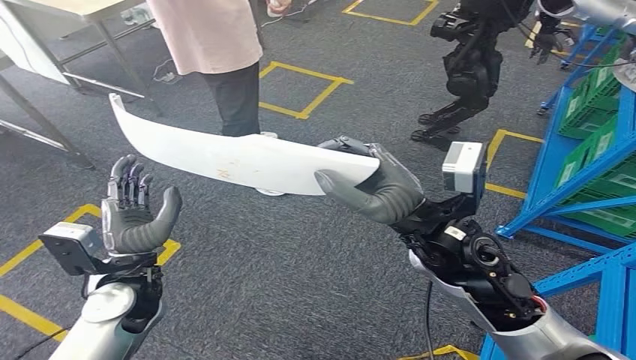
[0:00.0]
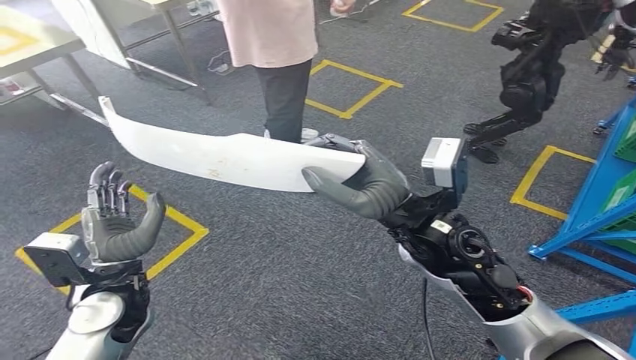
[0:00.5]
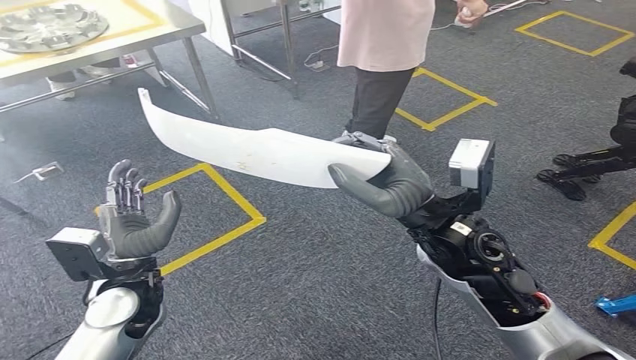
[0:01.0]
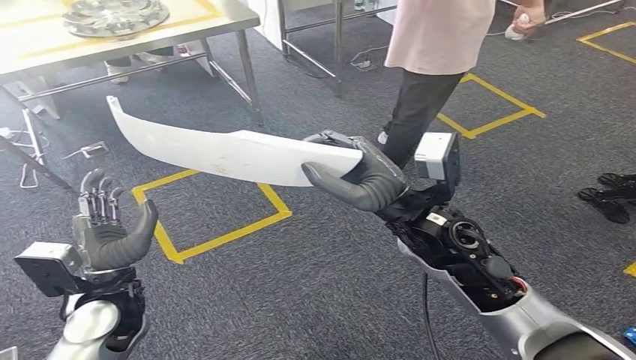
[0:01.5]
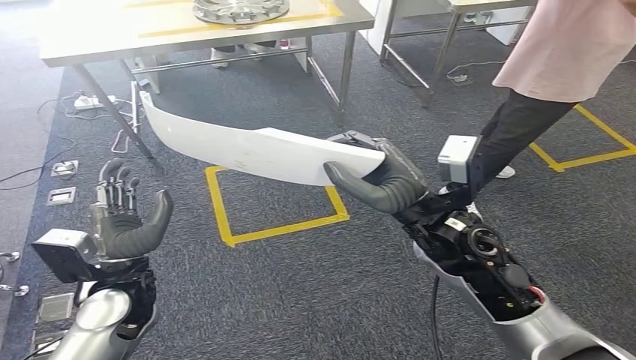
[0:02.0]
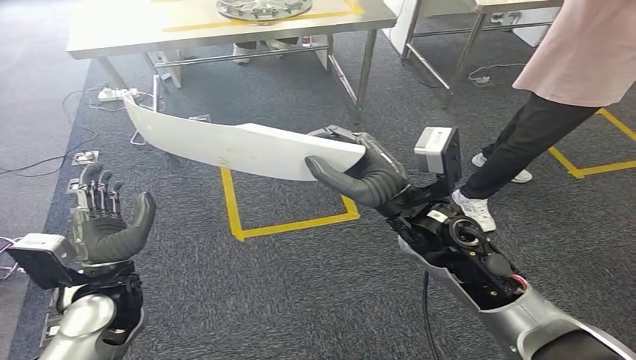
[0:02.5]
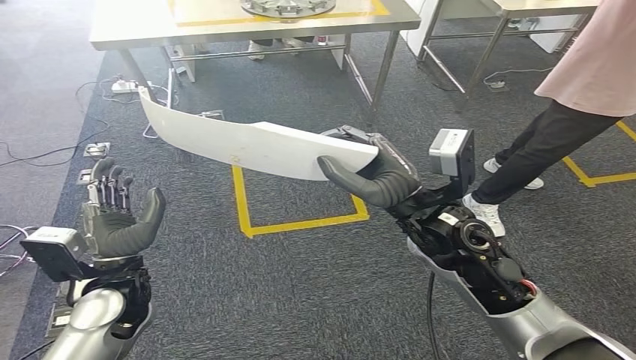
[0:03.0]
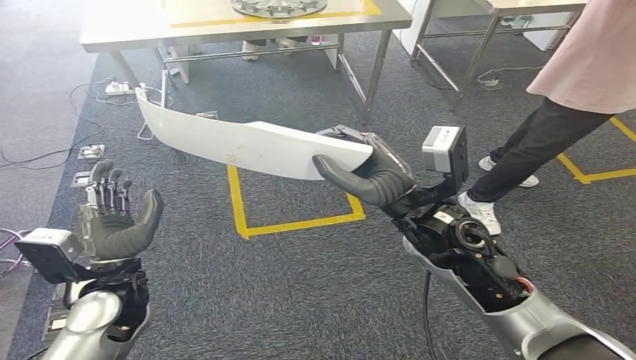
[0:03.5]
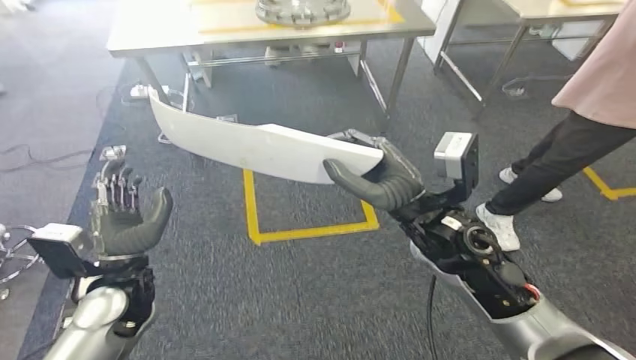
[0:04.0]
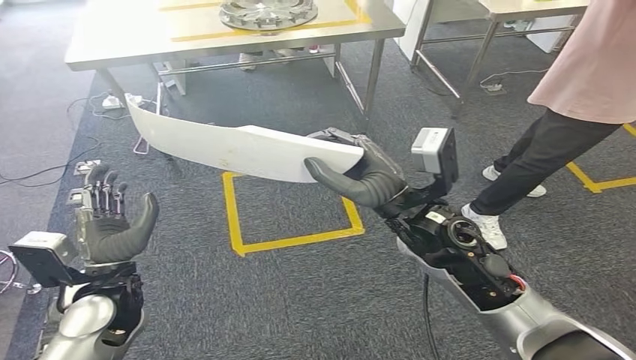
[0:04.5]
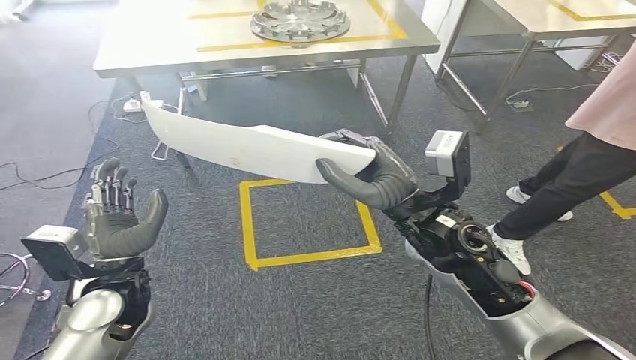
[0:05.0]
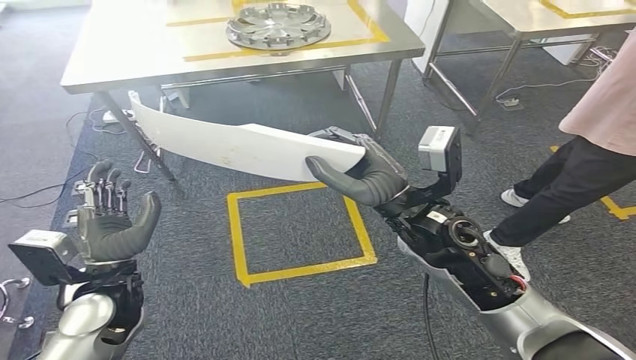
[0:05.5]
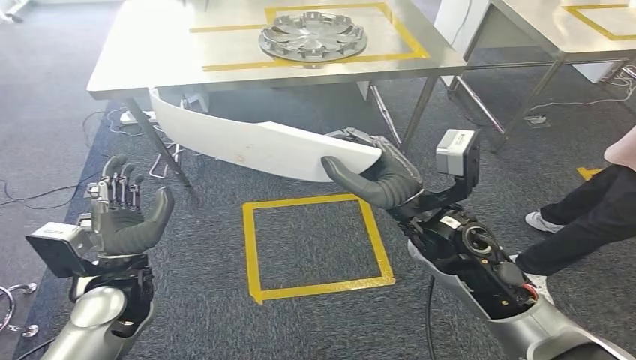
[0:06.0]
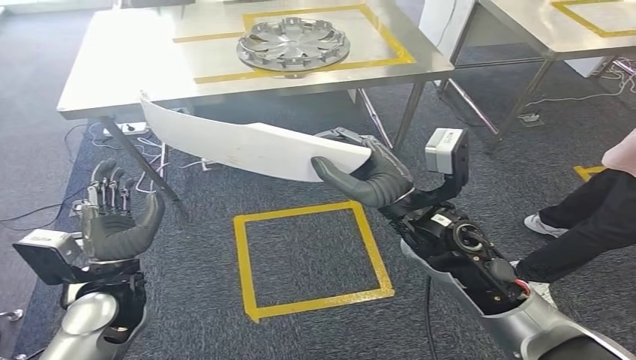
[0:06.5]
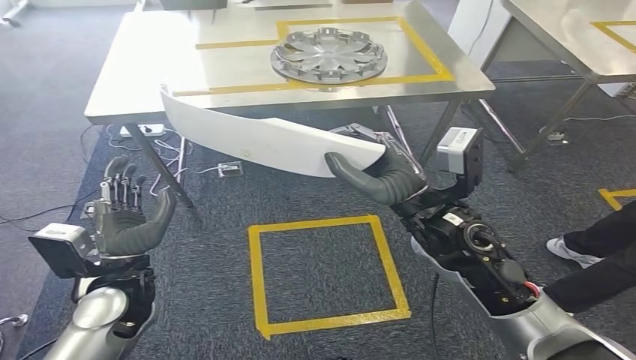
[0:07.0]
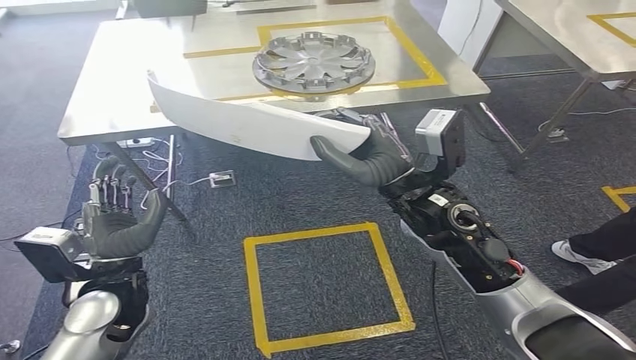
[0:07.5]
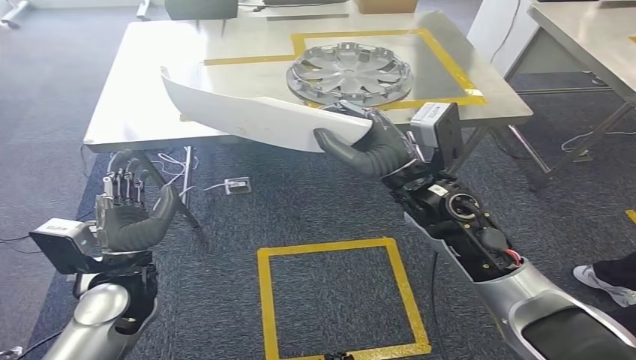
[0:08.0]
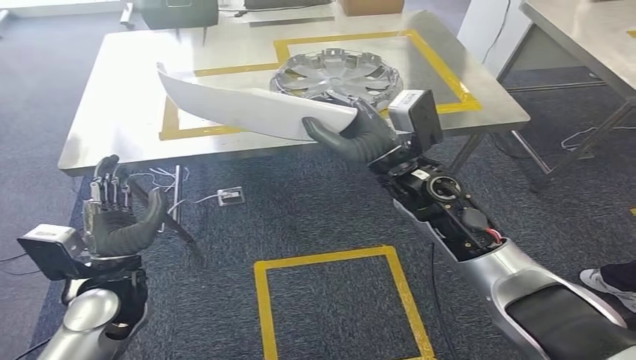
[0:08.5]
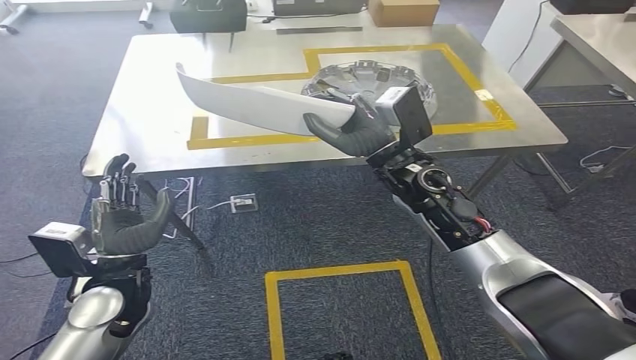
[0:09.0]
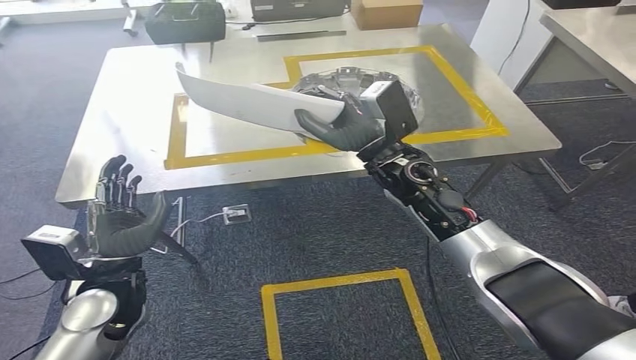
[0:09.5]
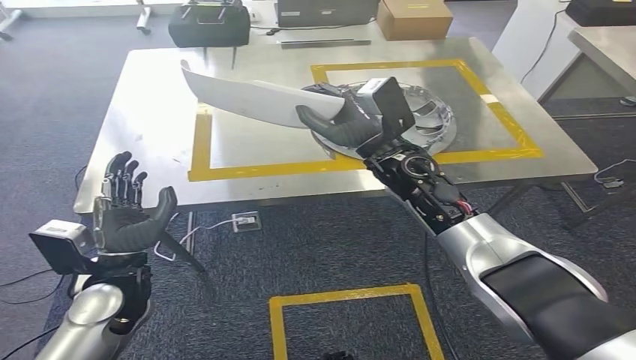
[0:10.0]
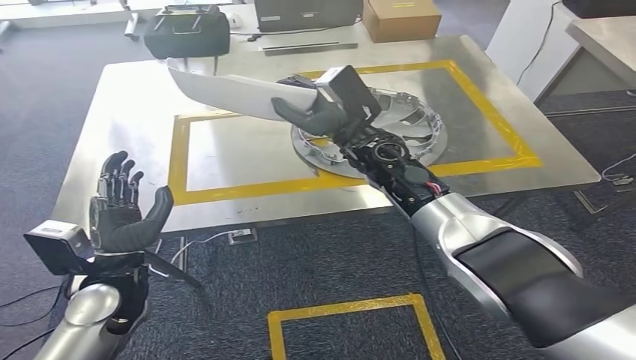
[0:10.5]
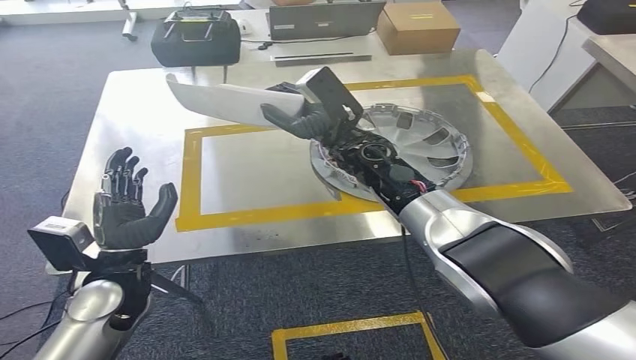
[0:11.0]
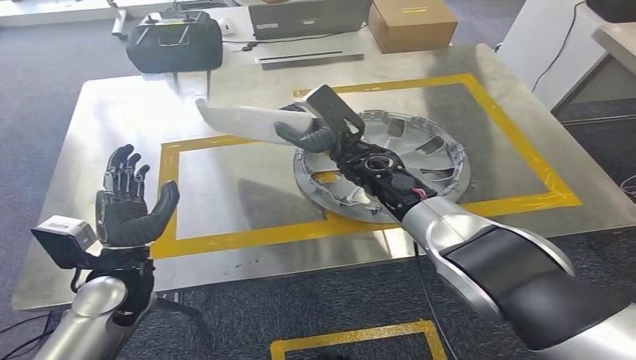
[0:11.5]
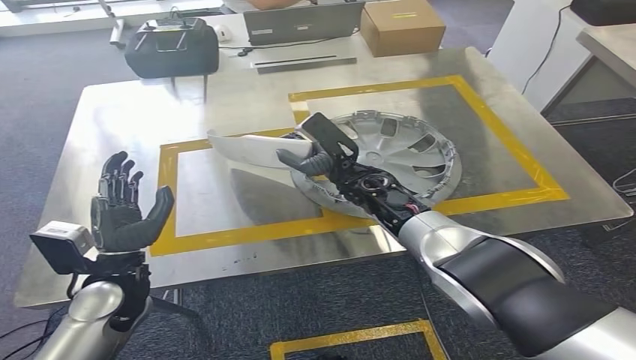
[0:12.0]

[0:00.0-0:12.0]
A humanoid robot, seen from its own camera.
Step, 0:00.0 to 0:11.0: Move the small parts to the workbench.

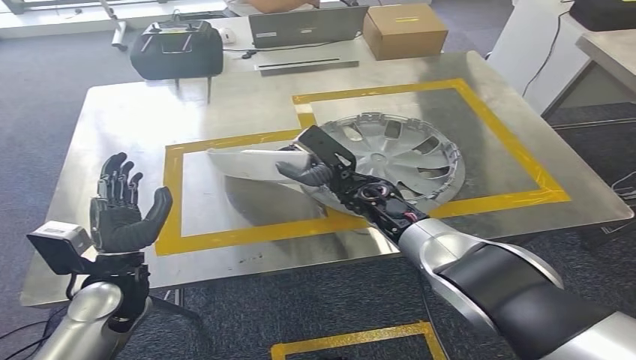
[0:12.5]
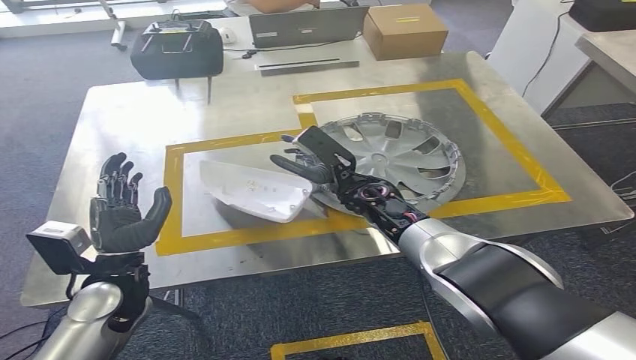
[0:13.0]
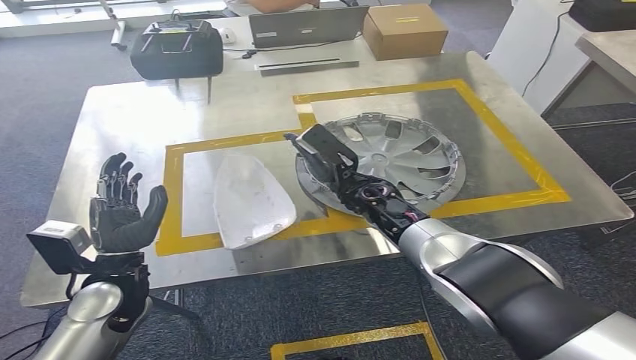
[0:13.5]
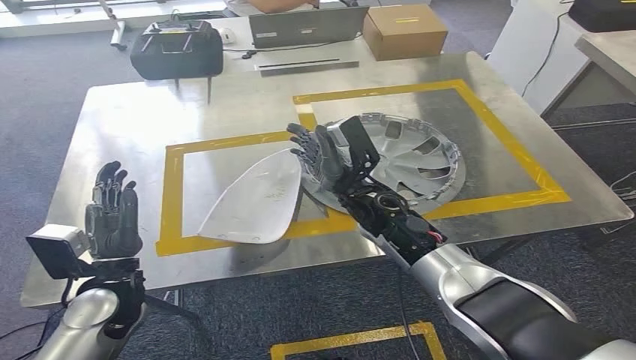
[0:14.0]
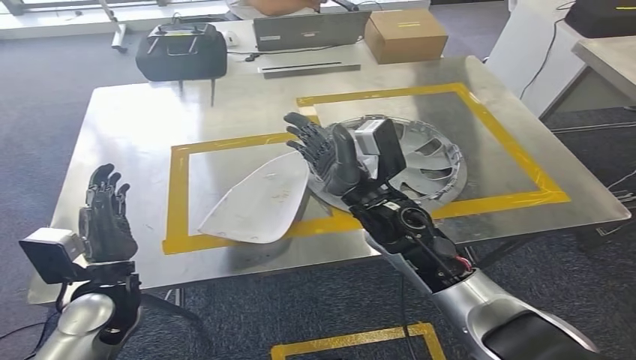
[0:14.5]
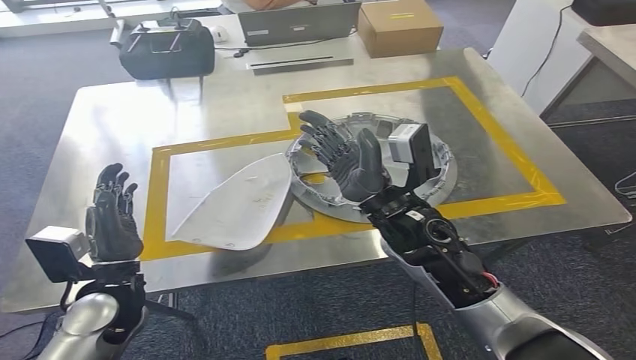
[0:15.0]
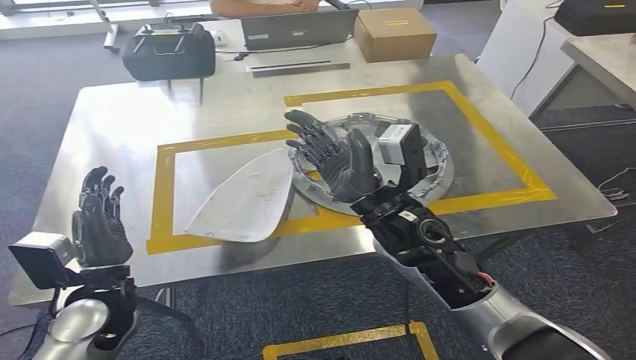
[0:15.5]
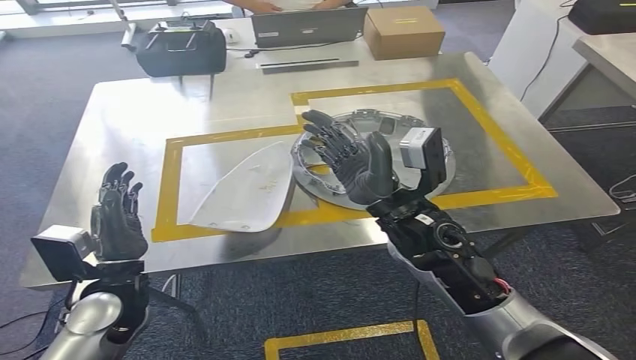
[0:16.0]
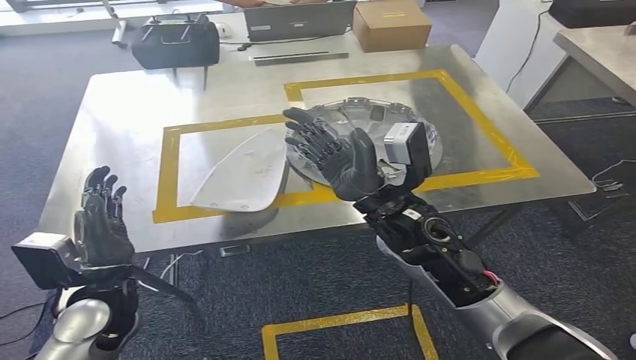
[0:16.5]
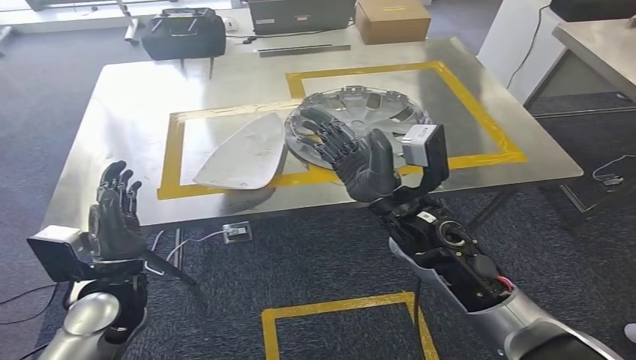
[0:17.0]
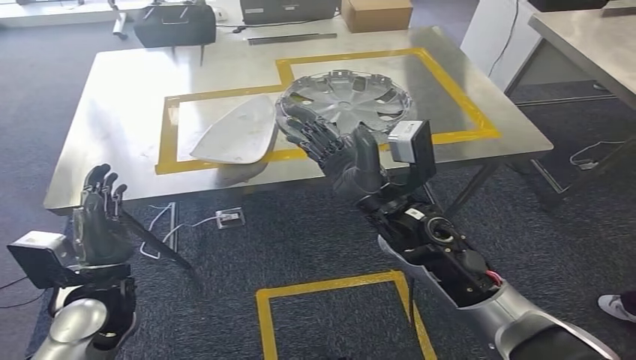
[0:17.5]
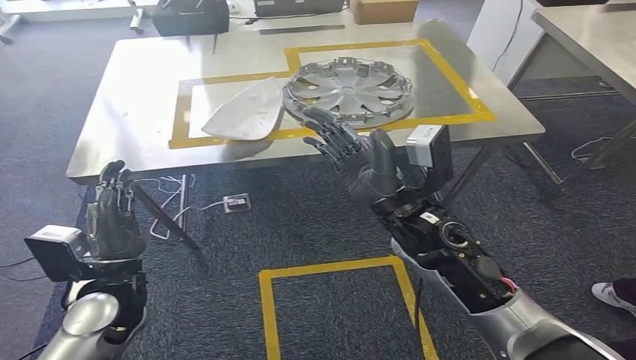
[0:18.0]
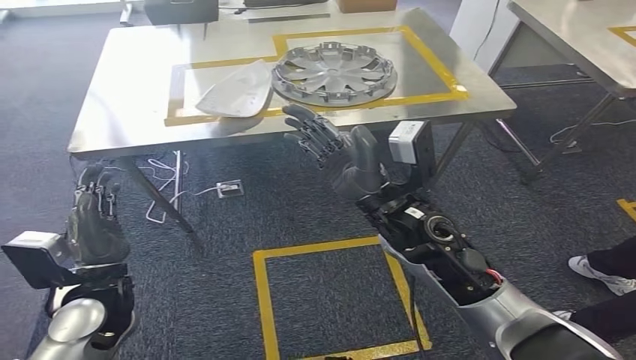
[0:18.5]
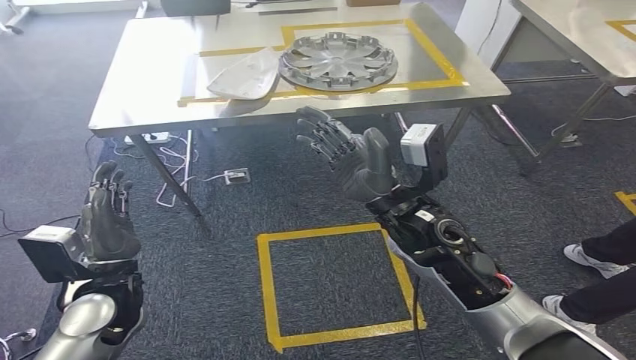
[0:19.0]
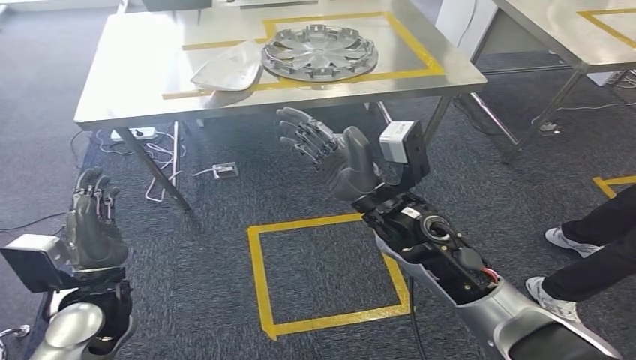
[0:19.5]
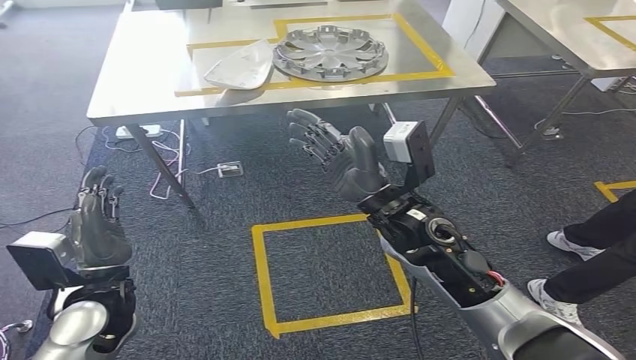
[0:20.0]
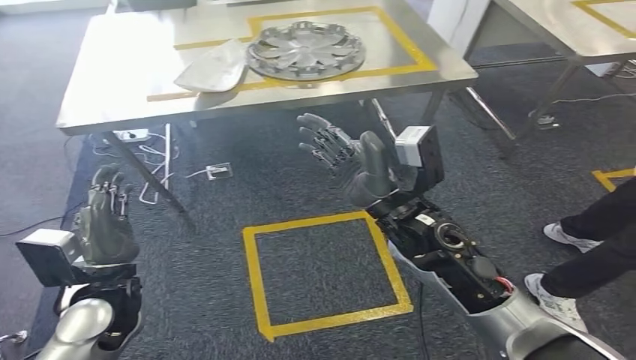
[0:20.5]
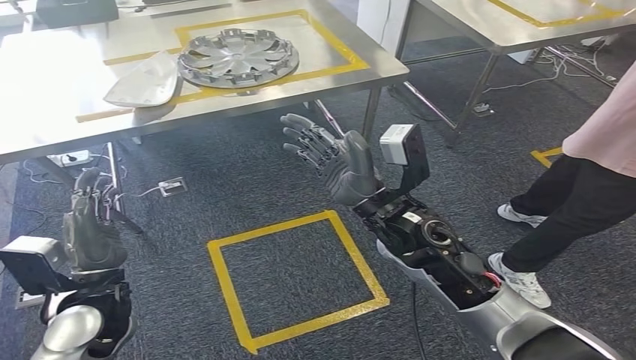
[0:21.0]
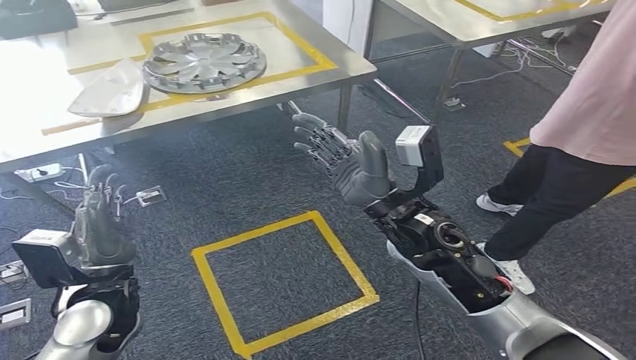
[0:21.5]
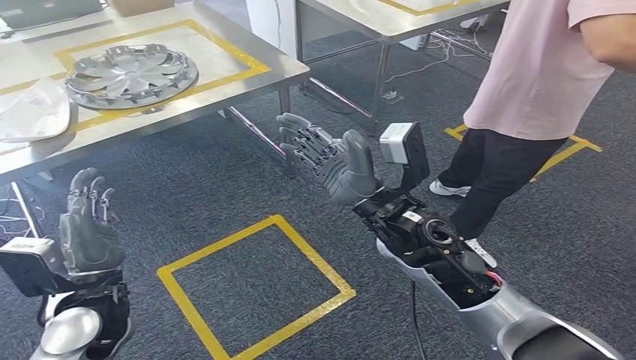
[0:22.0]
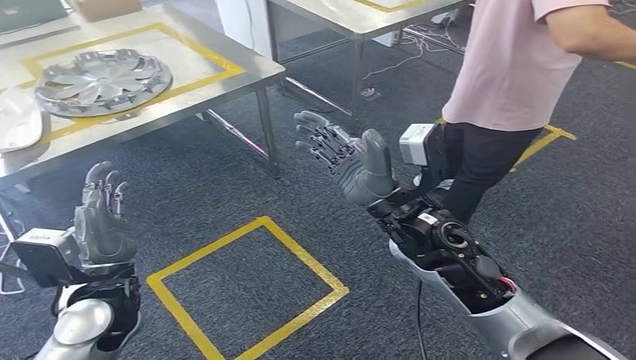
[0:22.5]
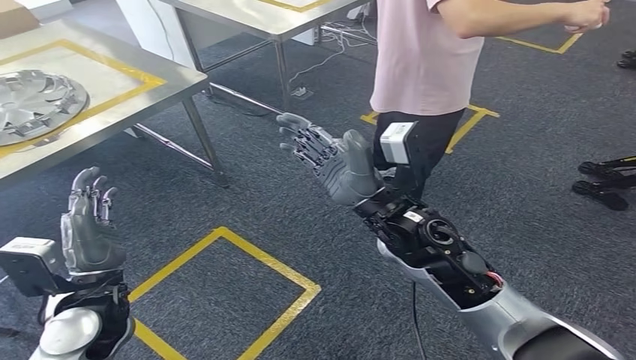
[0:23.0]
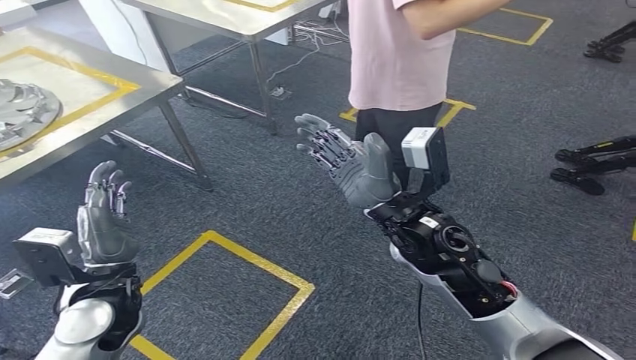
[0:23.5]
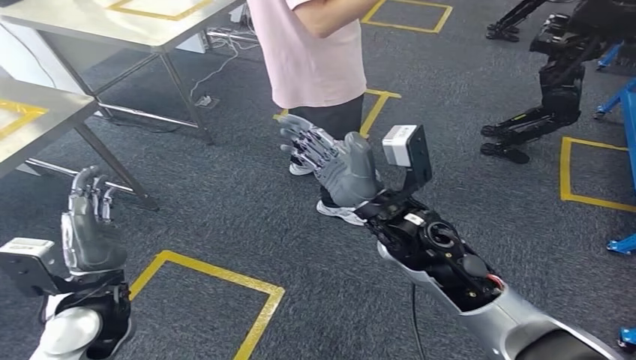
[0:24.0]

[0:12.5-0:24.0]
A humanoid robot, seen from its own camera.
Step, 0:12.5 to 0:15.0: Insert the small parts into the corresponding slots on the workbench.
